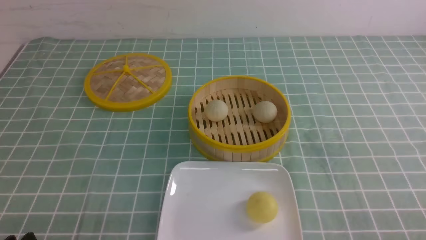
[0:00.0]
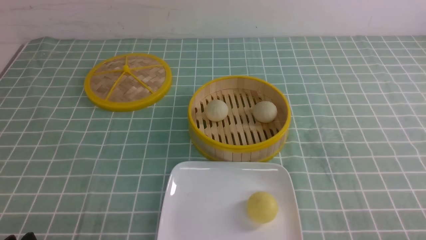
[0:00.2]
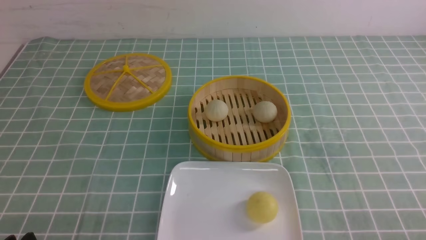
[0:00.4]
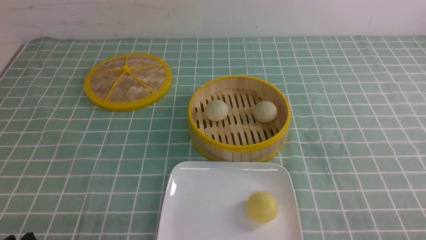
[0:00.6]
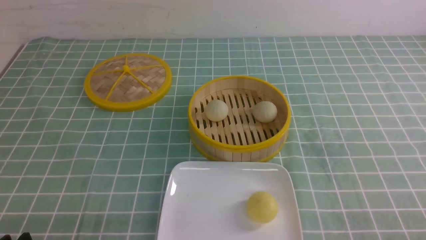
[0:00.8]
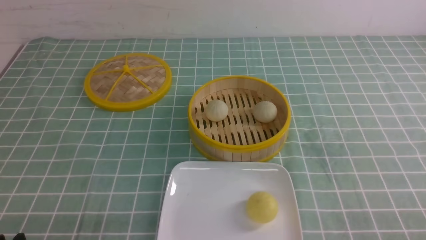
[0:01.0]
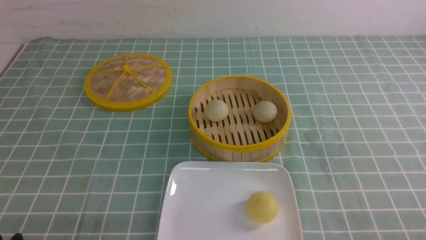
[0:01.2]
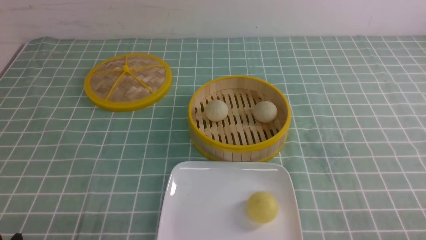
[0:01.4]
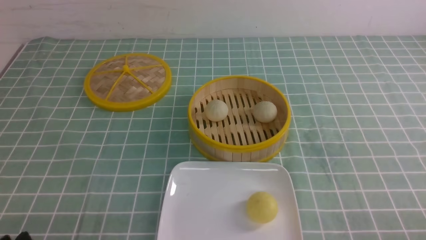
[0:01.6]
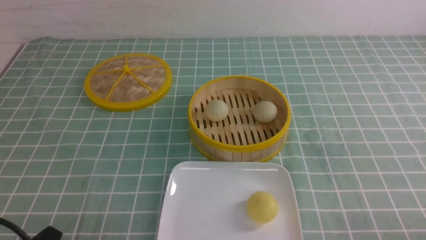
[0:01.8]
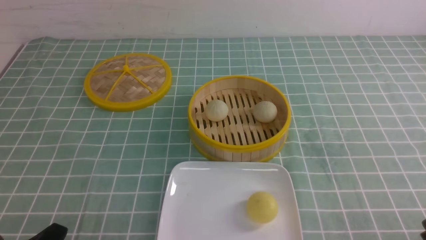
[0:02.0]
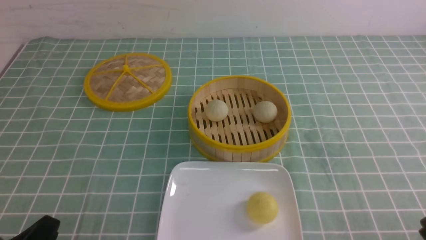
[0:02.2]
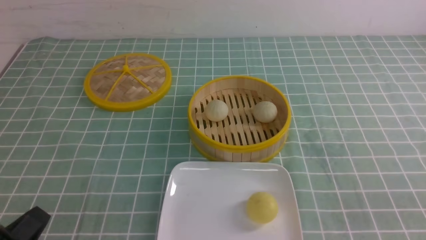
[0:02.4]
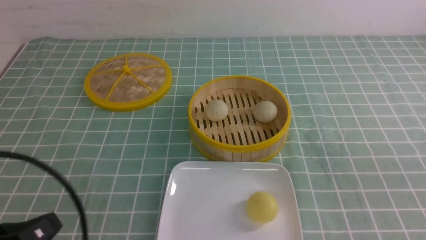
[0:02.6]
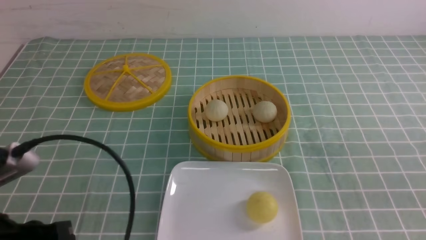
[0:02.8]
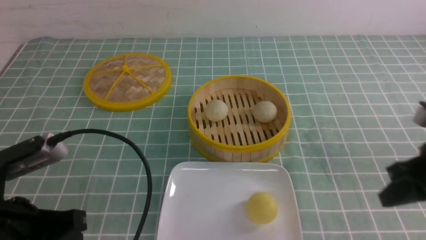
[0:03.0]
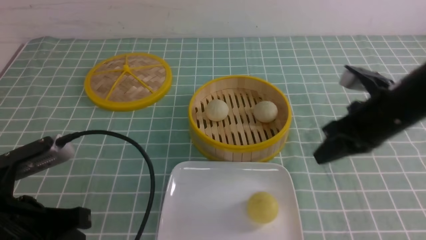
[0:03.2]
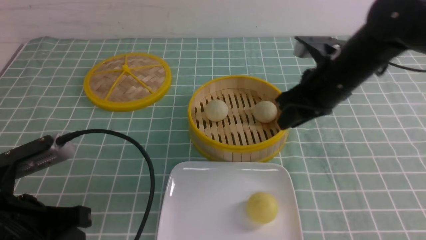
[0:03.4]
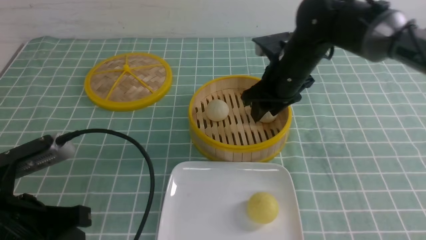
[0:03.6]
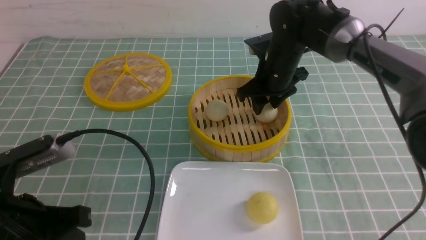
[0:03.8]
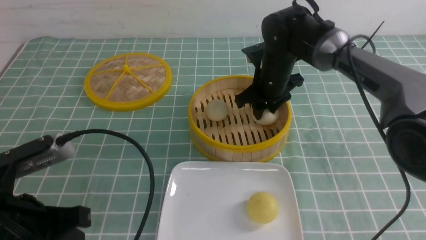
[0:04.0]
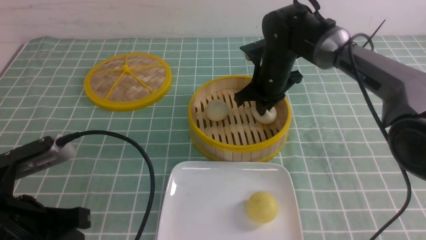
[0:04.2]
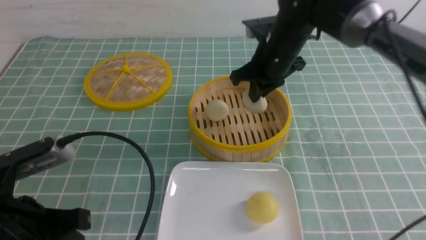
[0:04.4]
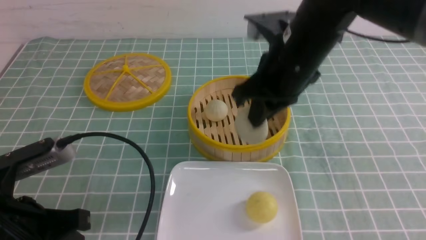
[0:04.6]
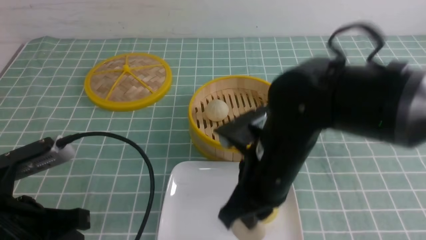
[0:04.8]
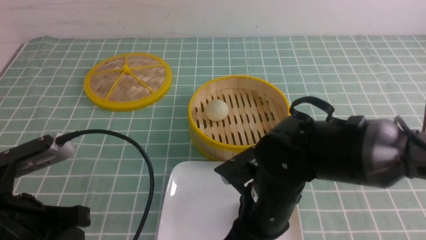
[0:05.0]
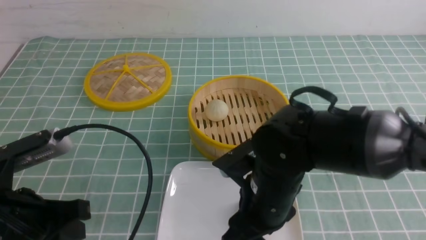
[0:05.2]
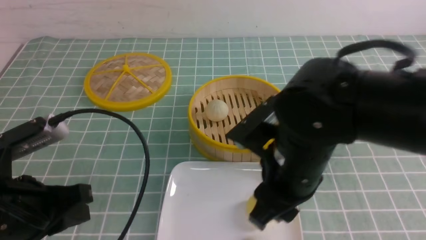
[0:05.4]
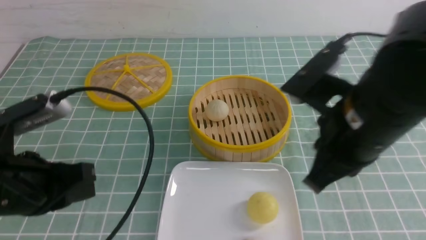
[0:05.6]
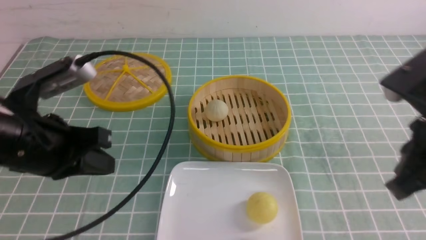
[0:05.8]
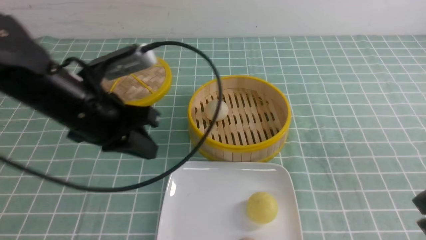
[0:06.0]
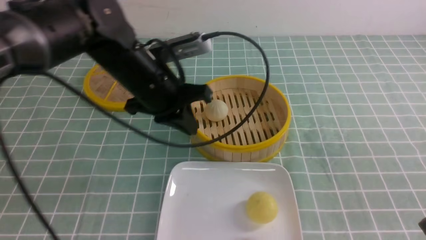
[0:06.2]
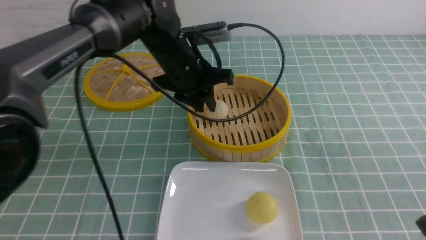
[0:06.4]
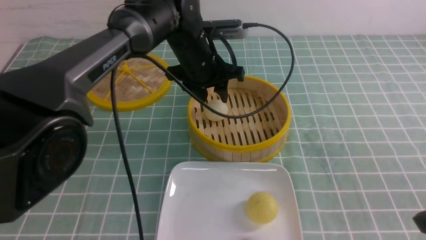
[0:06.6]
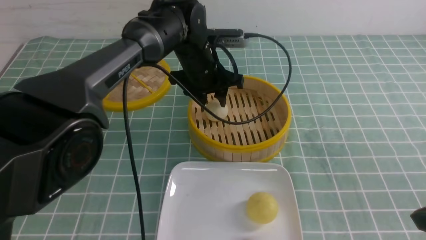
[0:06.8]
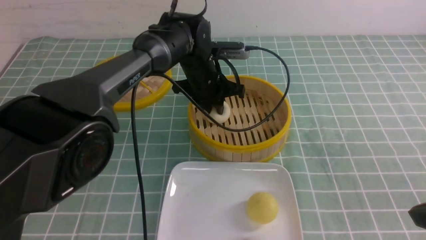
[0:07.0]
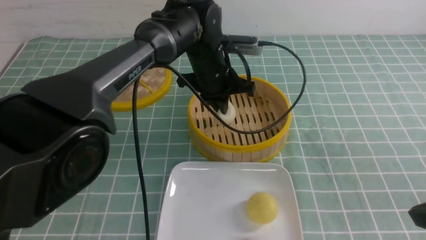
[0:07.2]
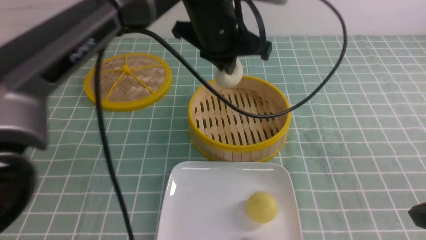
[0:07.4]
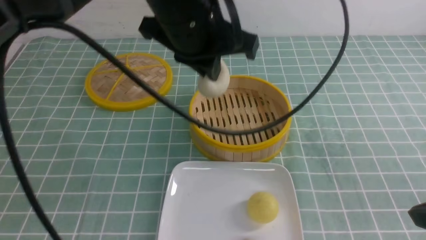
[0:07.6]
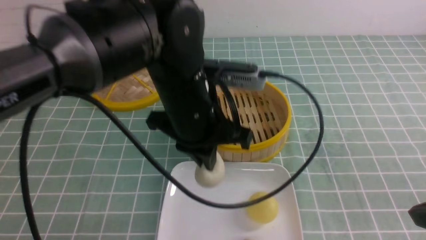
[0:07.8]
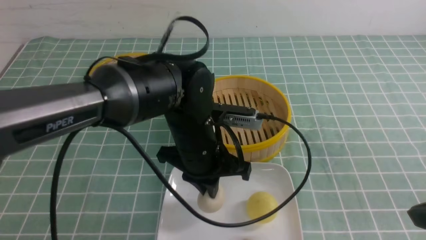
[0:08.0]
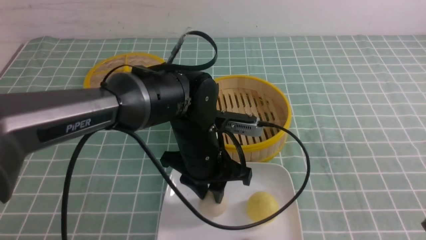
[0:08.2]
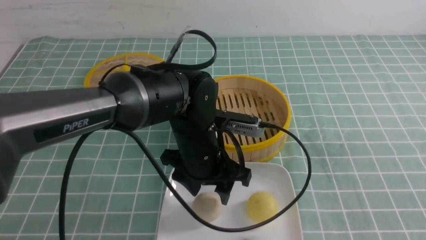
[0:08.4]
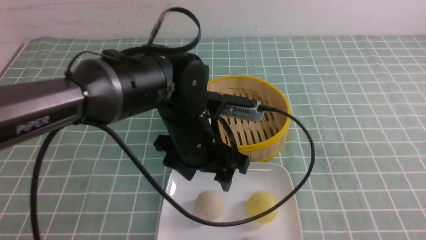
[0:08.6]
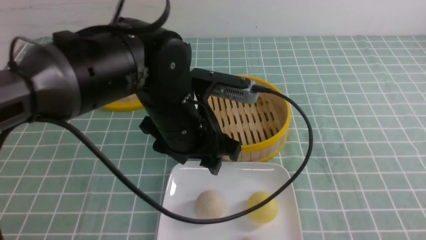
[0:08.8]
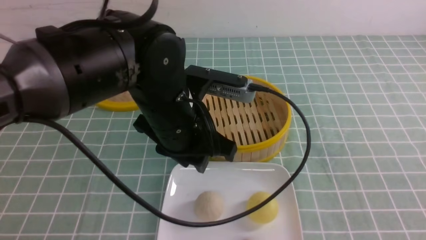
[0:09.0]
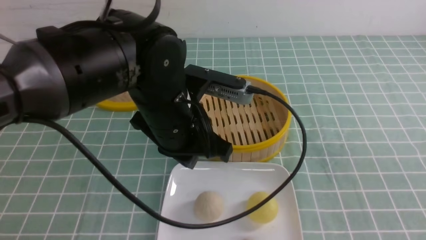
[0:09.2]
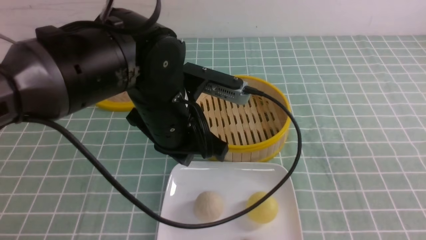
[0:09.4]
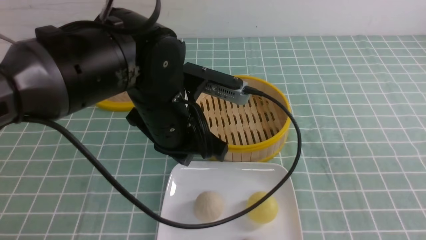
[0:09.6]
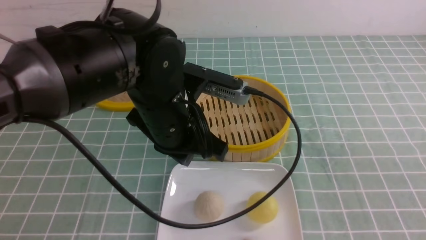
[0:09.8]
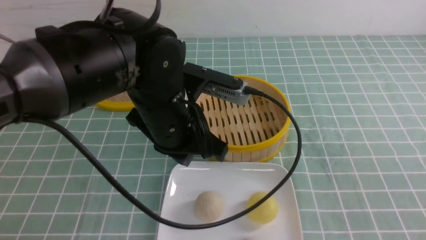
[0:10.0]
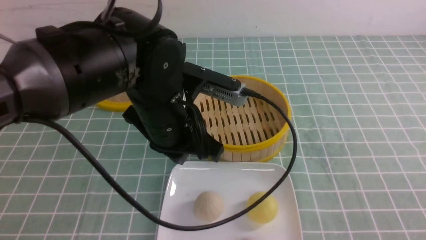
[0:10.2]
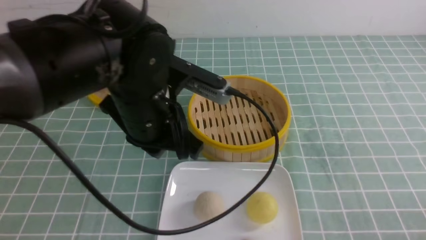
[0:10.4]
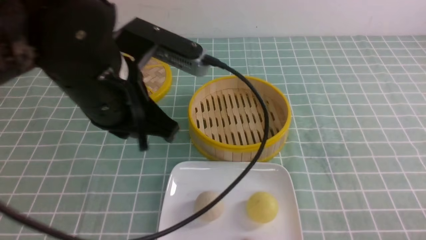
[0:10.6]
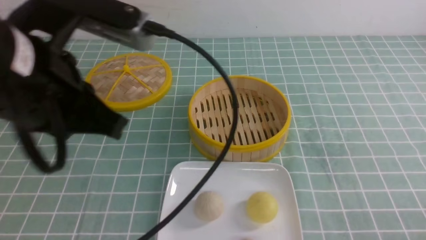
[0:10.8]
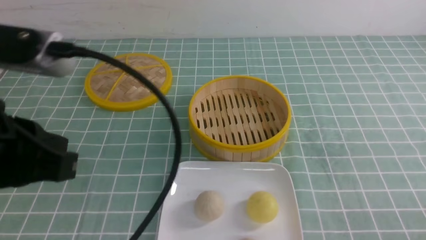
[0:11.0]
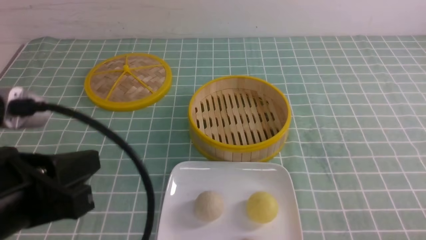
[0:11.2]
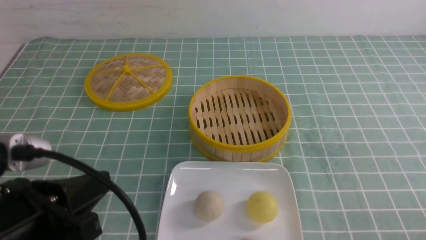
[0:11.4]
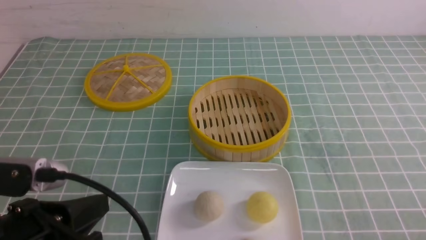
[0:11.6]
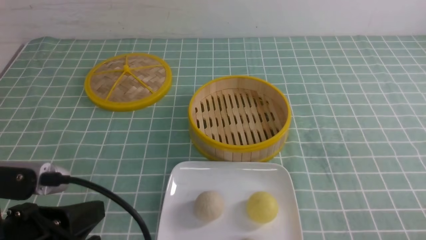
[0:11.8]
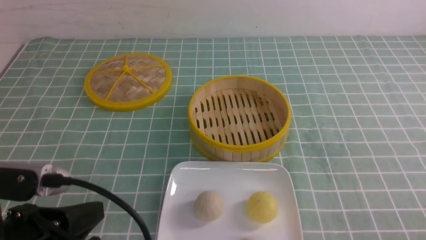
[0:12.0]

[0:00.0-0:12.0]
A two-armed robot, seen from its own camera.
Step, 0:00.0 to 0:04.2: use the right arm to grab the steamed stuffed bun that is closest to it.
Step, 0:04.4 to 0:05.2: use the right arm to put the steamed stuffed bun into the plate.
Step, 0:05.4 to 0:07.0: use the left arm to grab the steamed stuffed bun that is closest to it.
Step, 0:07.2 to 0:08.4: use the left arm to put the steamed stuffed bun into the plate.
0:01.6 to 0:03.0: The left gripper is displaced upward and forward by approximately 10 cm, and closes its fingers, while the right gripper is displaced forward and upward by about 15 cm, and closes.
0:03.0 to 0:04.4: The right gripper travels forward and to the left by approximately 30 cm, and opens, then closes again.
0:04.4 to 0:06.0: The right gripper travels backward and to the right by some 30 cm, and opens, then closes once more; the left gripper is displaced forward by about 10 cm.
0:06.0 to 0:07.6: The left gripper goes approximately 20 cm to the right and forward, and opens, then closes again. The right gripper shifts by some 5 cm.
0:07.6 to 0:09.0: The left gripper heads downward and backward, covering roughly 10 cm, and opens its fingers. Meanwhile the right gripper shifts approximately 10 cm backward and to the right.
0:09.0 to 0:10.4: The left gripper closes its fingers. The right gripper goes roughly 10 cm downward.
0:10.4 to 0:12.0: The left gripper moves backward and to the left, roughly 20 cm.

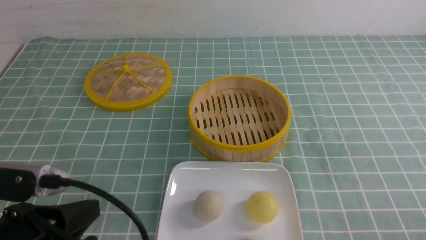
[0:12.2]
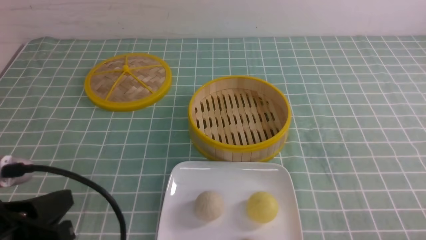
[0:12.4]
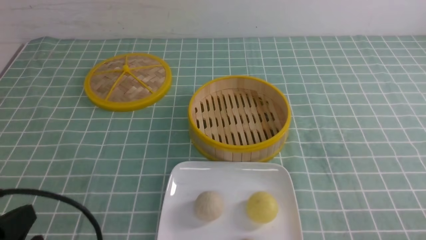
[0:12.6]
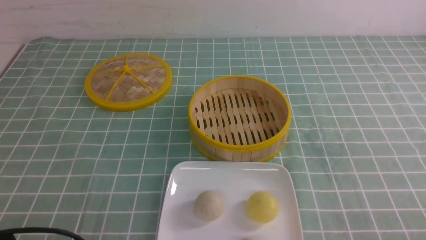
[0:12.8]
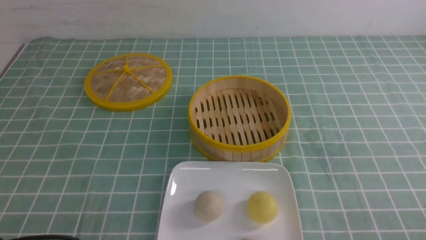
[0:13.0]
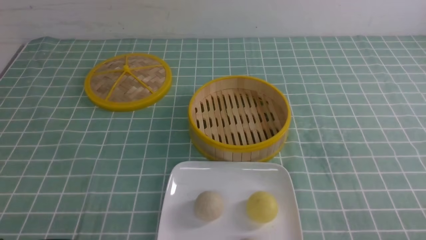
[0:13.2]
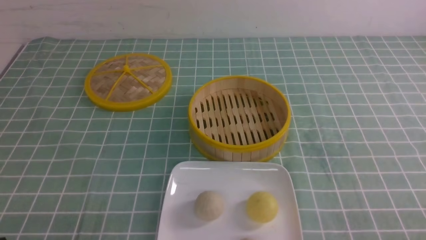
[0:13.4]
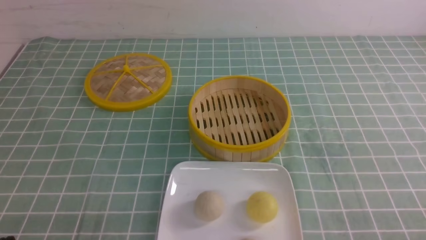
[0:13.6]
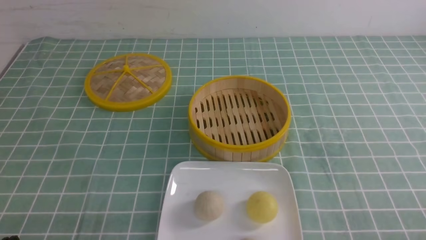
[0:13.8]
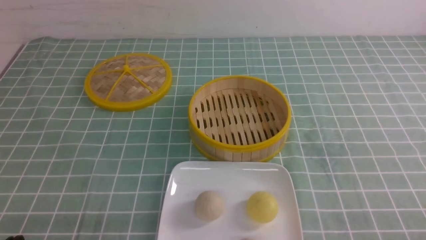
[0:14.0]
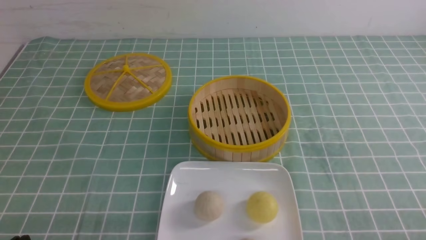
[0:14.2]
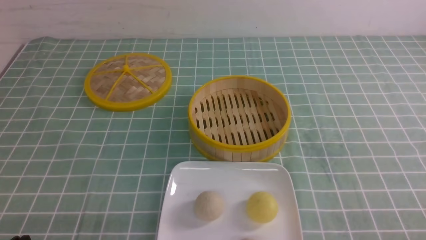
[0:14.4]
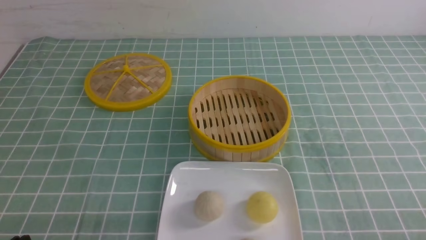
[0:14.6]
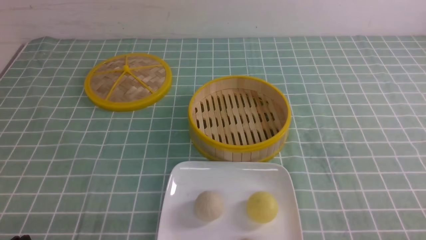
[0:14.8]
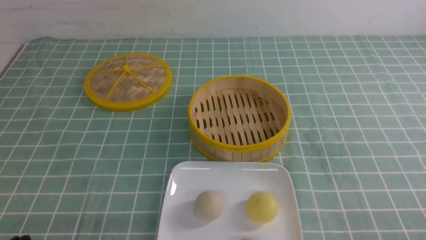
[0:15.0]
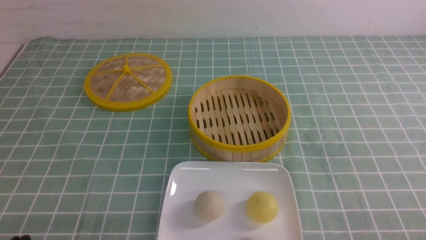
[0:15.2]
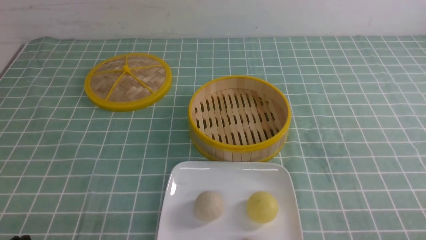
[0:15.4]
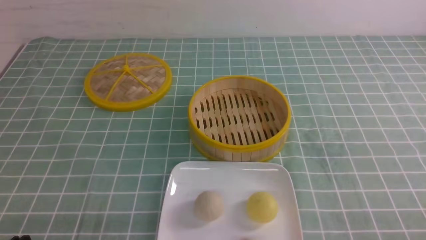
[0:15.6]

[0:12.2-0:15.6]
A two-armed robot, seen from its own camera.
0:12.2 to 0:13.8: The left gripper shifts roughly 10 cm downward and to the left.

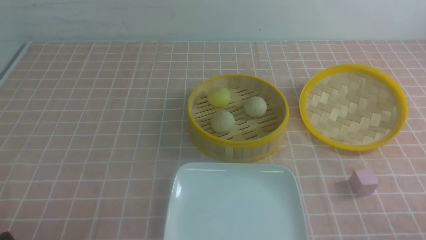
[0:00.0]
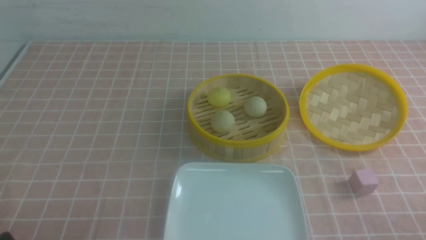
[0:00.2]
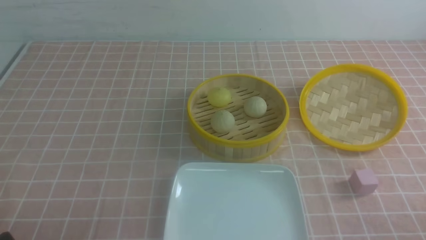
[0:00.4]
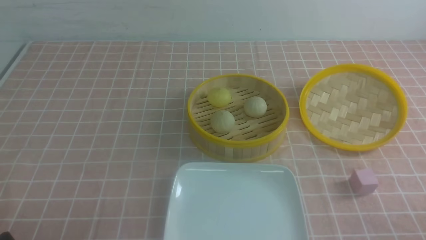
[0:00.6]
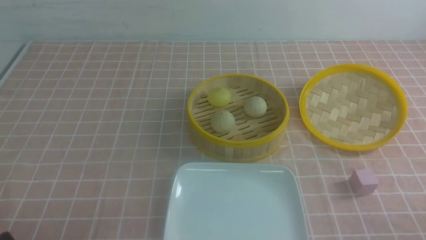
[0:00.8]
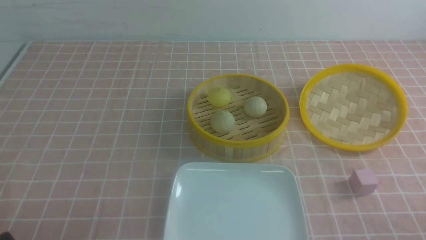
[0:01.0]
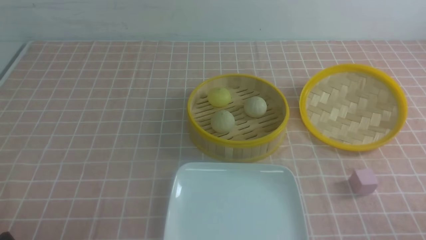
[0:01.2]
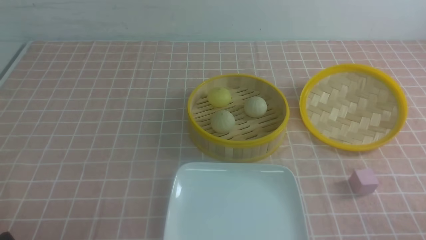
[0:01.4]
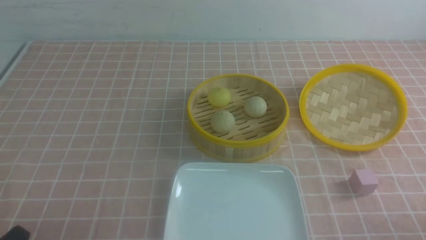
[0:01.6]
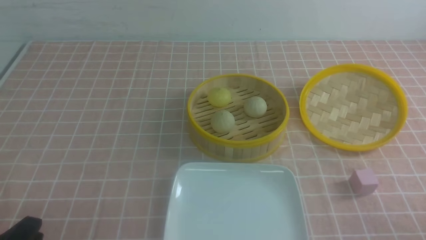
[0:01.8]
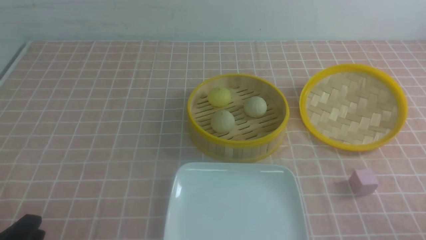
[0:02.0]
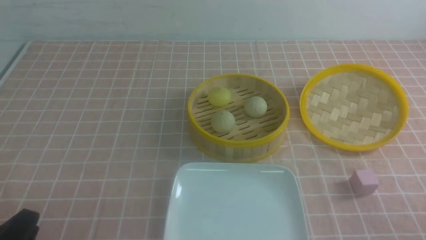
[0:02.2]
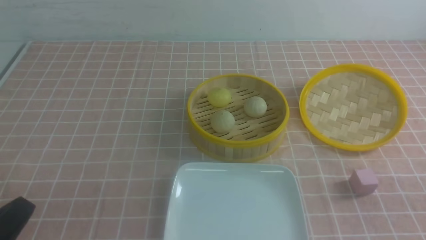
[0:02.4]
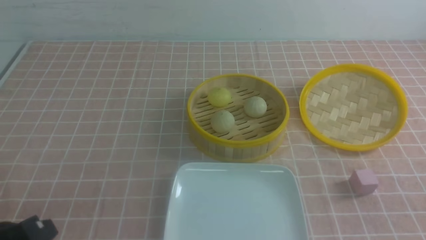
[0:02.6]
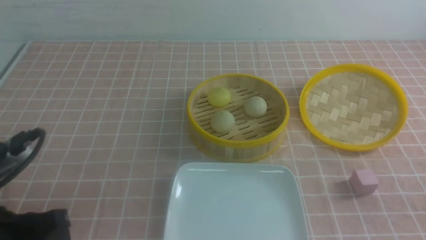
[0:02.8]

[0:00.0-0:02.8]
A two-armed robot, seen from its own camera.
0:01.4 to 0:02.8: The left gripper is displaced upward and forward by approximately 10 cm, and closes its fingers.
